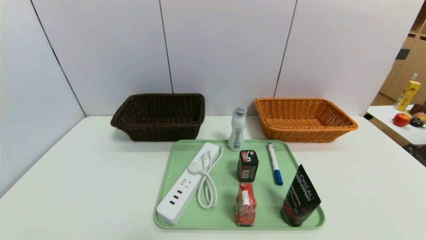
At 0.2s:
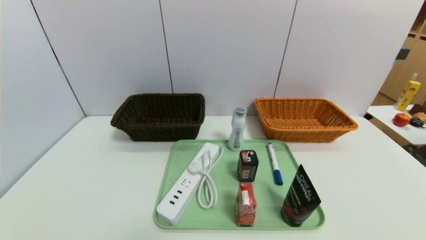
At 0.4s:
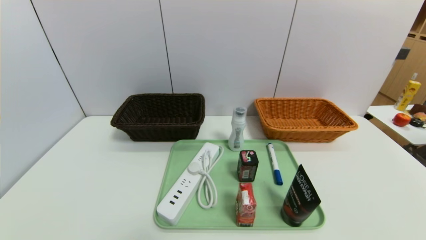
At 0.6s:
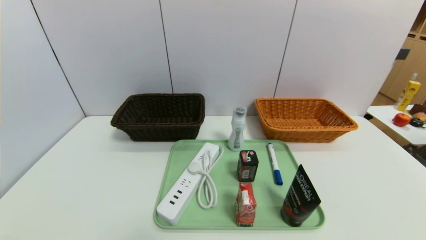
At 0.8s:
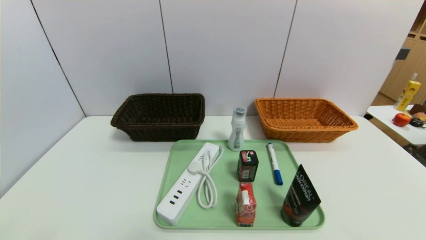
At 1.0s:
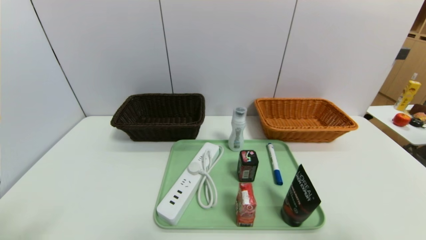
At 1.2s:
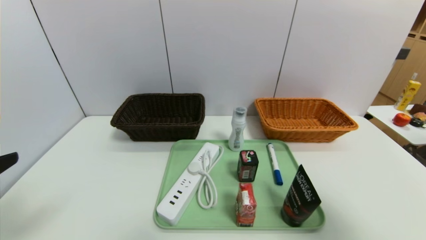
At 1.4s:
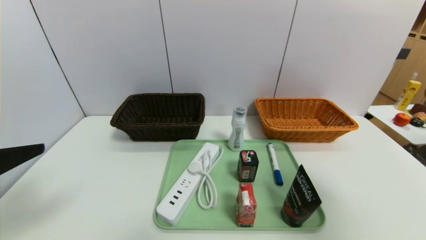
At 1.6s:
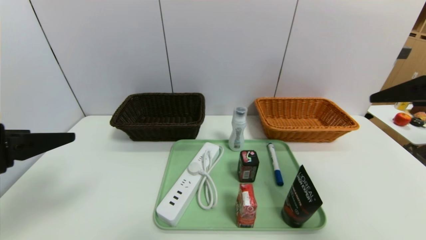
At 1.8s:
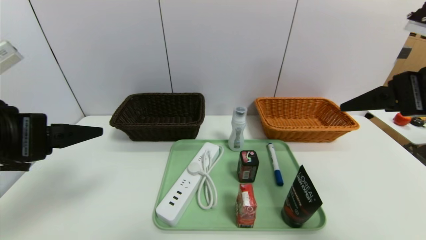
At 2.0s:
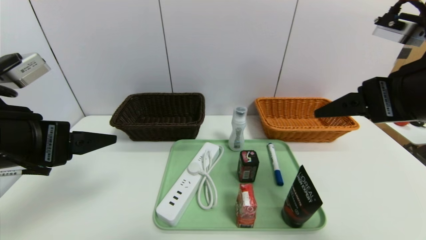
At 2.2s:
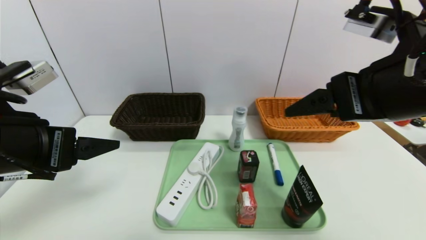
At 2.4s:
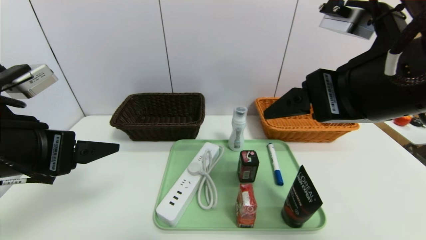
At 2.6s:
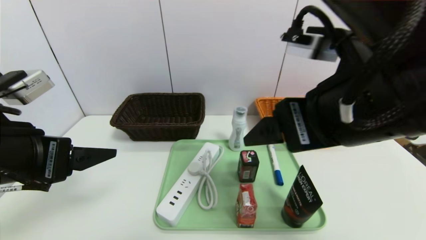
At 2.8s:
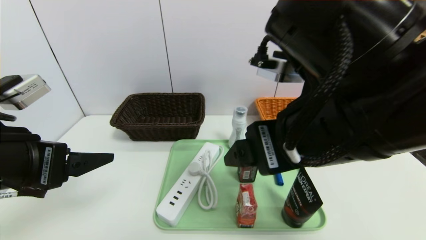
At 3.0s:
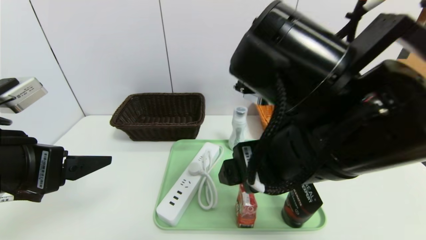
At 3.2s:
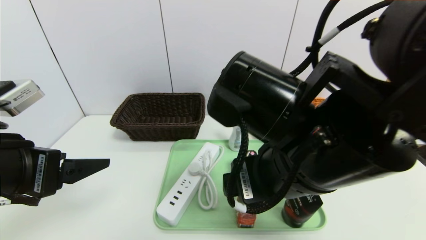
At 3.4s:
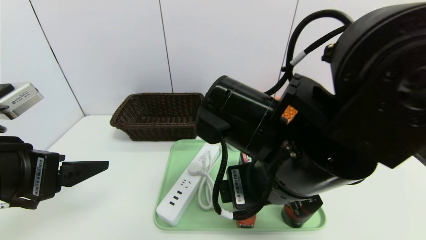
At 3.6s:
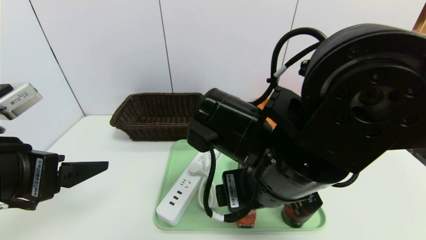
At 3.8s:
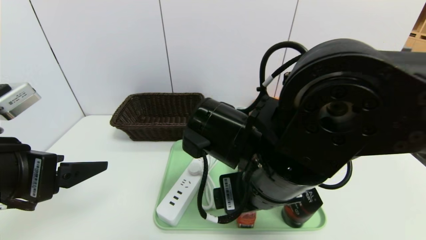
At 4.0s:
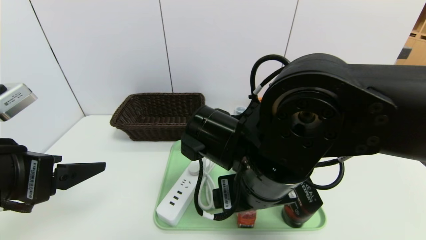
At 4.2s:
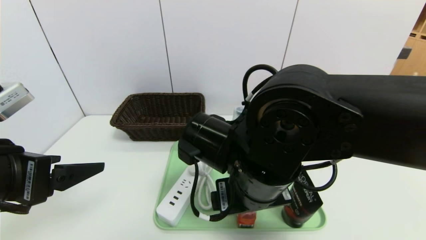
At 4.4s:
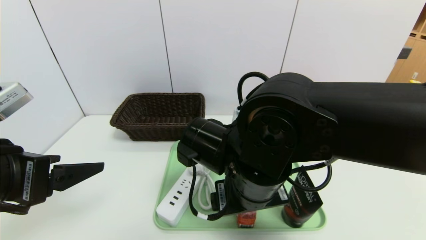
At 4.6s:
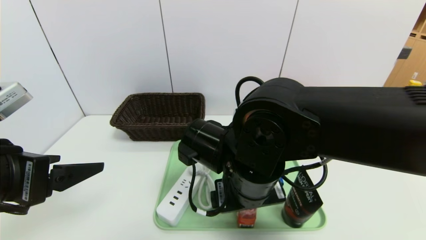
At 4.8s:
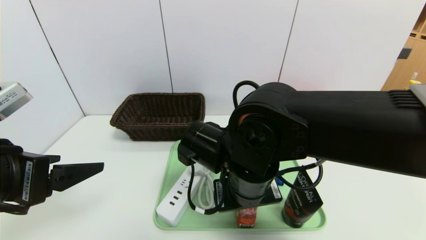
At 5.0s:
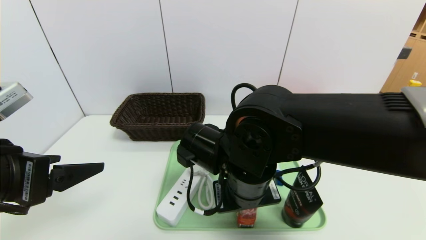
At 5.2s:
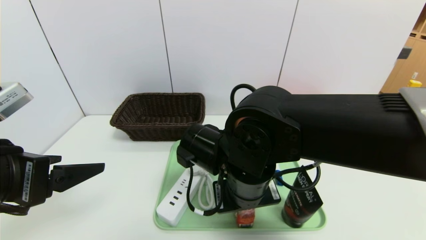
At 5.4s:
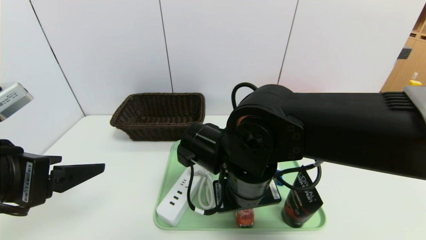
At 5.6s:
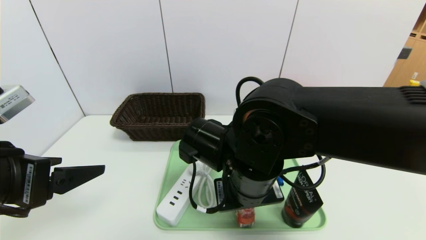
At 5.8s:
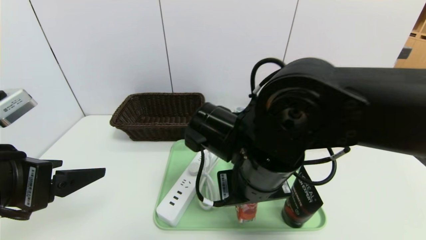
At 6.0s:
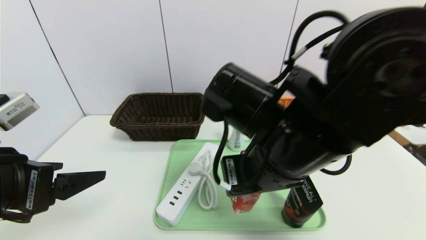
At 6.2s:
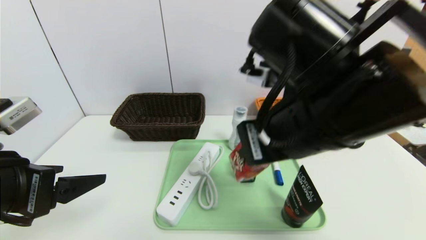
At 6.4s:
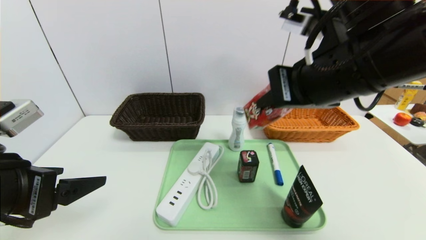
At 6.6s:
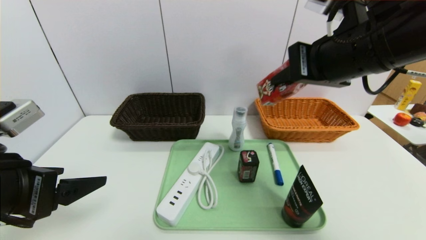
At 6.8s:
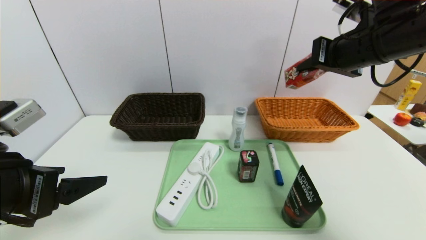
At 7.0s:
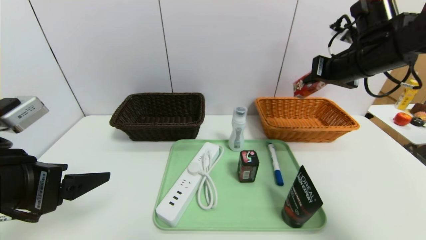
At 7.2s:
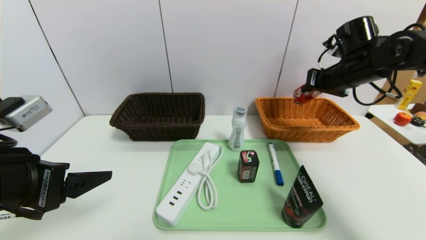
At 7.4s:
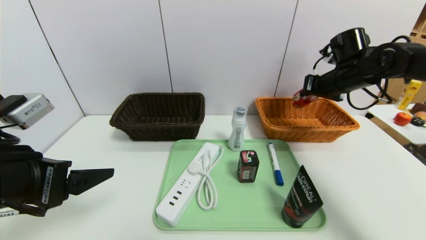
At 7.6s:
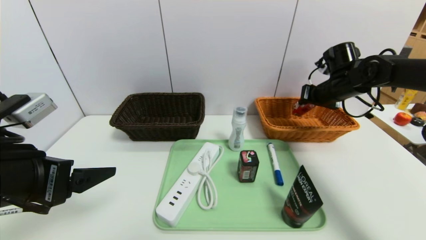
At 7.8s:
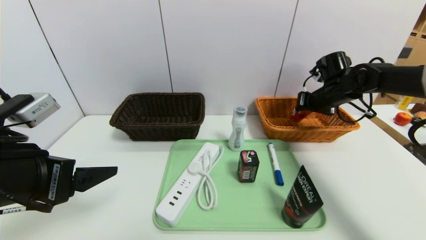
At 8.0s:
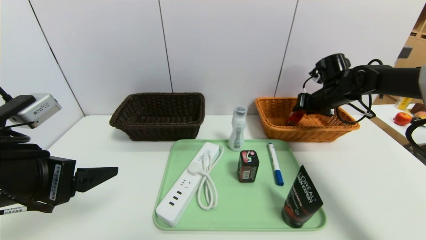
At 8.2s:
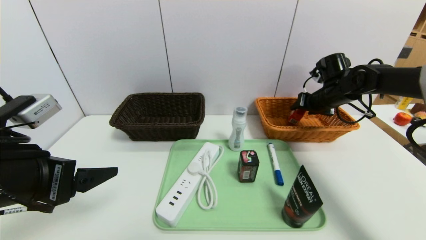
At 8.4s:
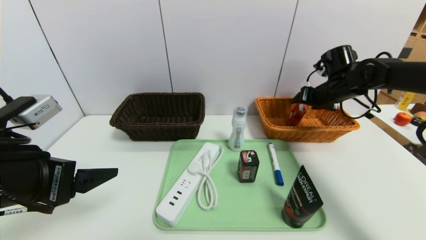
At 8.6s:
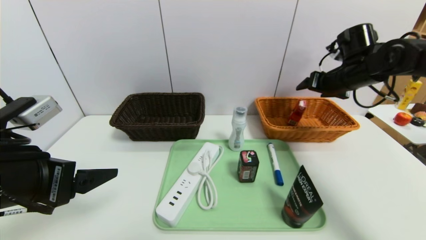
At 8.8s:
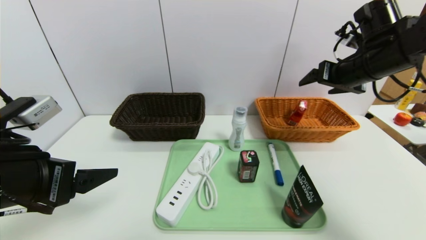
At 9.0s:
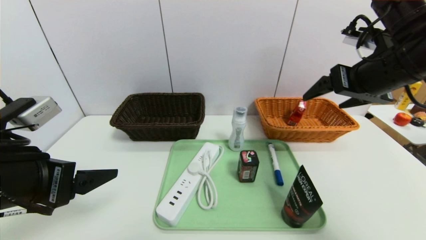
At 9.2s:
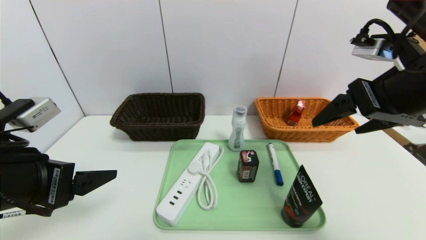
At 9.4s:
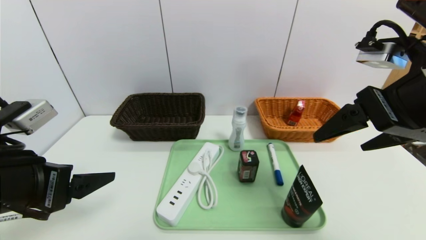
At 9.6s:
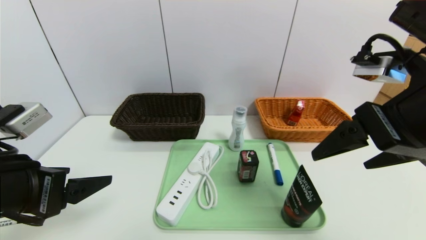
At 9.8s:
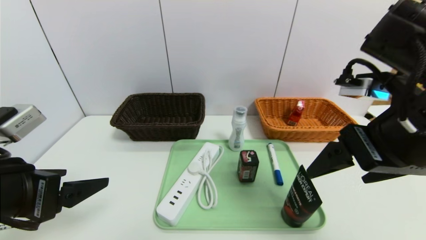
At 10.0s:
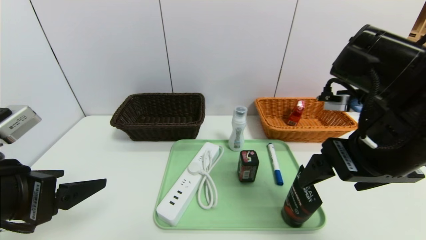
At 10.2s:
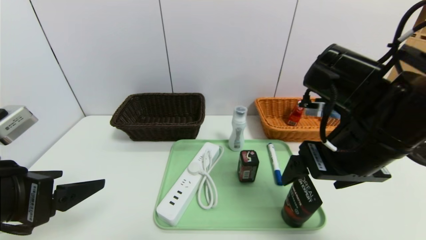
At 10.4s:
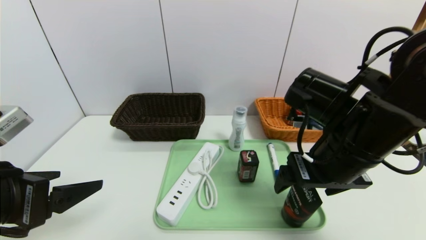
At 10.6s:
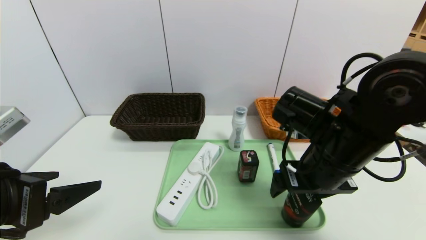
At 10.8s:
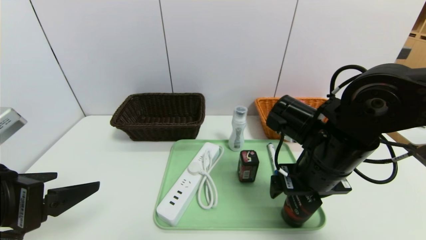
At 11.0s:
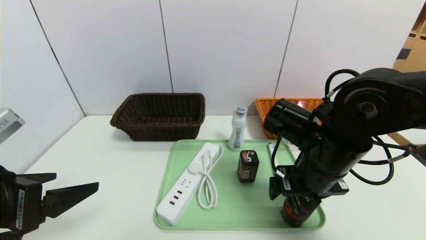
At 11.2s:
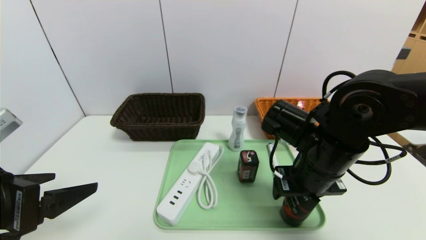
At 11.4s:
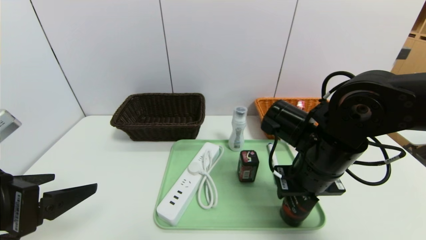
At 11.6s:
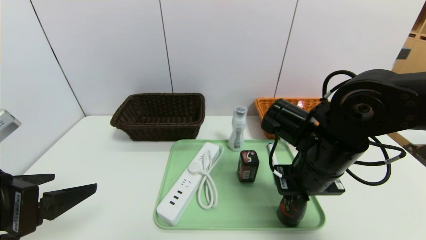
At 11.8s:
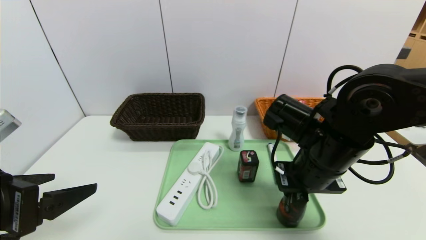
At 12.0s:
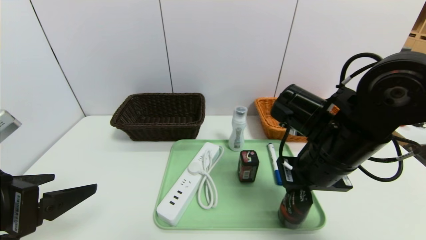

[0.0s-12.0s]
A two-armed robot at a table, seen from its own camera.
Task of the whole recording: place the food in the right basket with the right gripper, and place the non food items in the left basket with the left gripper.
Step, 0.0s to 8.6s: Grasp the ad milk and put it in the right basket.
0.0s to 1.6s: Both grippers travel together upward and forward, approximately 30 cm.
1.6s to 3.0s: The right gripper is displaced to the left by about 20 cm.
3.0s to 4.4s: The right gripper heads downward, covering some 10 cm.
4.4s to 6.0s: The right gripper moves upward, approximately 5 cm, and closes its fingers.
6.0s to 7.6s: The right gripper is displaced forward and to the right by about 35 cm.
7.6s to 9.0s: The right gripper is displaced backward and upward by approximately 20 cm, and opens.
9.0s to 10.4s: The right gripper travels downward and to the left by roughly 15 cm.
10.4s to 12.0s: The right gripper closes.

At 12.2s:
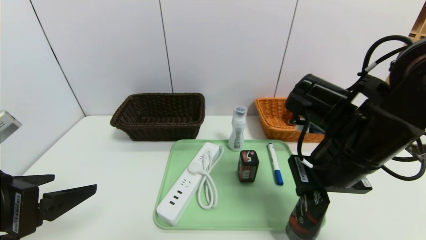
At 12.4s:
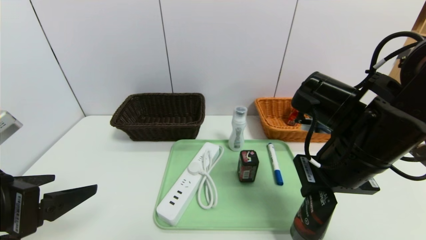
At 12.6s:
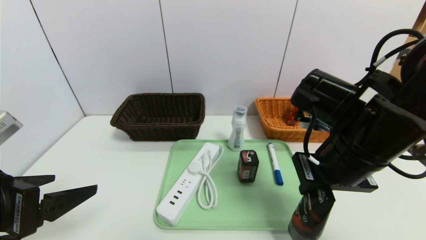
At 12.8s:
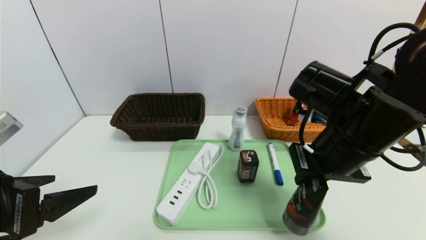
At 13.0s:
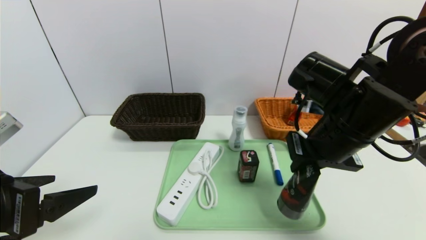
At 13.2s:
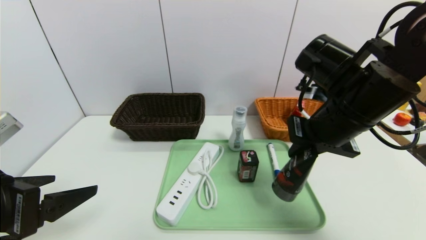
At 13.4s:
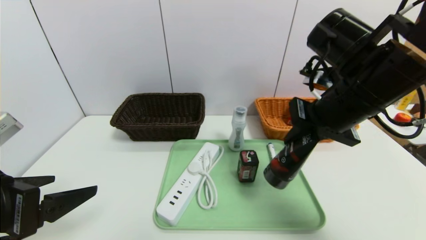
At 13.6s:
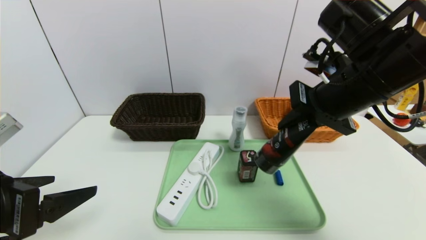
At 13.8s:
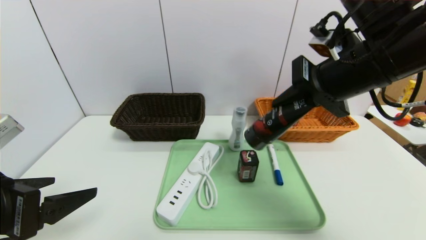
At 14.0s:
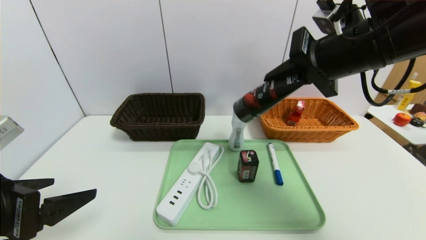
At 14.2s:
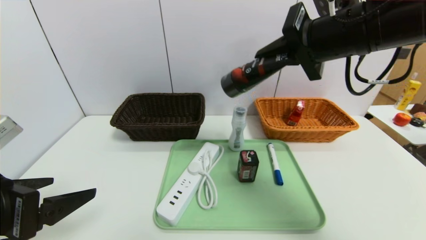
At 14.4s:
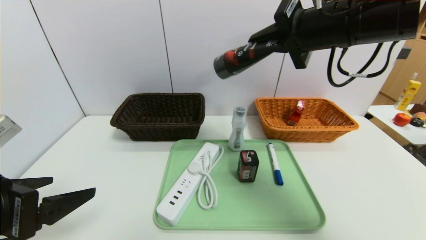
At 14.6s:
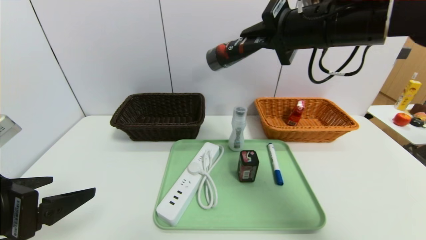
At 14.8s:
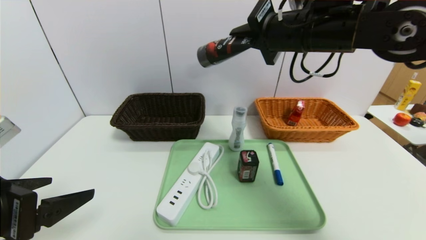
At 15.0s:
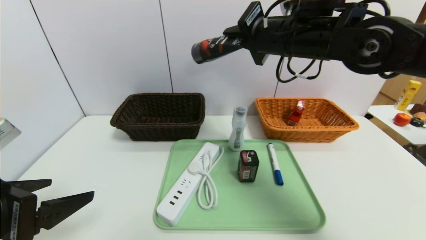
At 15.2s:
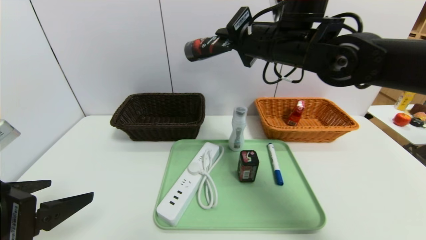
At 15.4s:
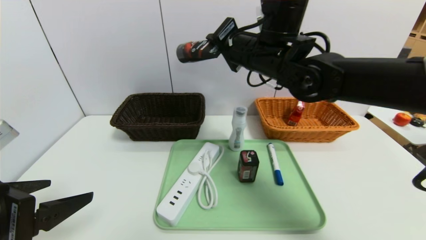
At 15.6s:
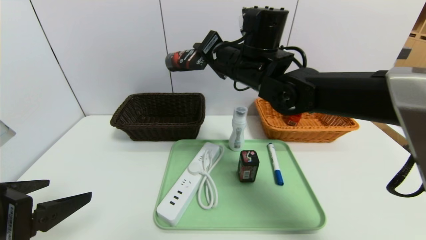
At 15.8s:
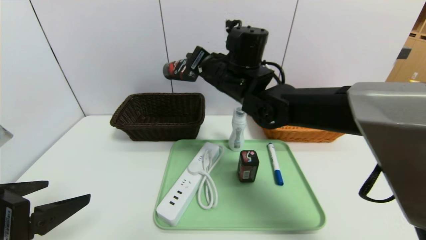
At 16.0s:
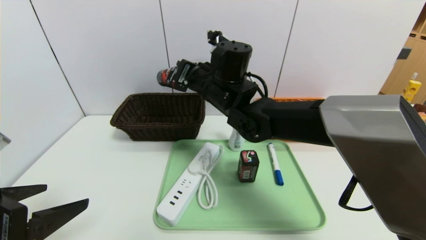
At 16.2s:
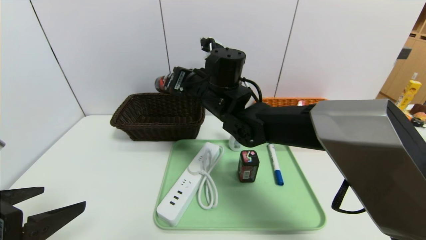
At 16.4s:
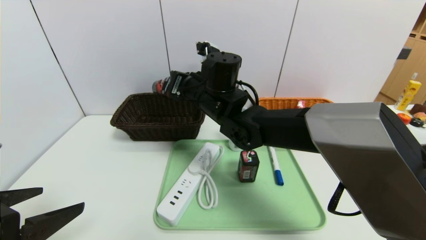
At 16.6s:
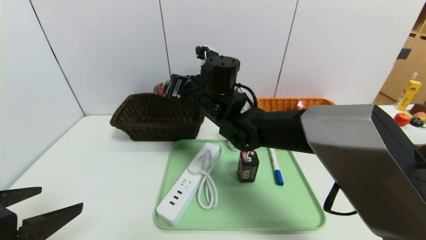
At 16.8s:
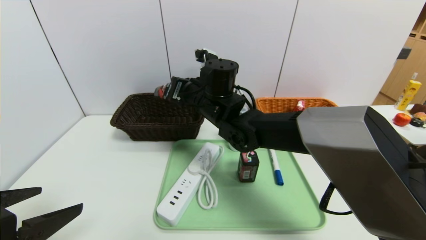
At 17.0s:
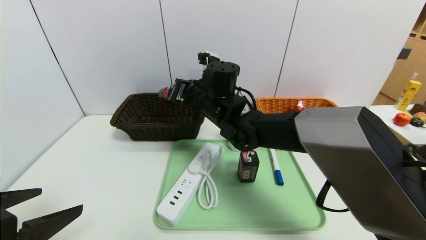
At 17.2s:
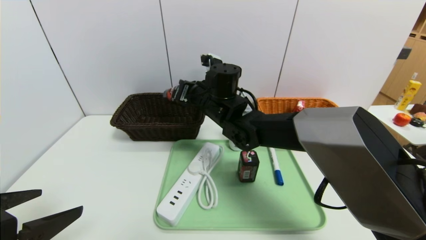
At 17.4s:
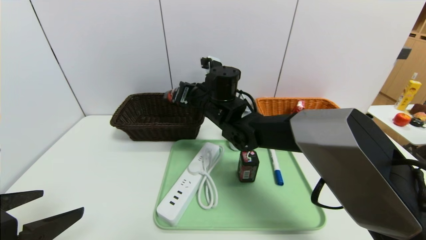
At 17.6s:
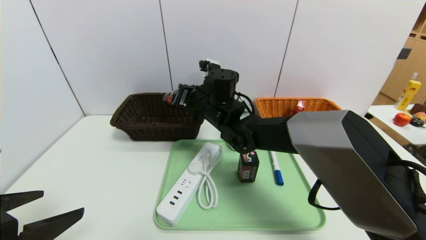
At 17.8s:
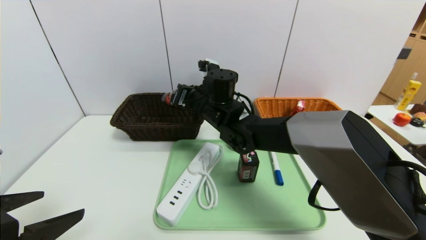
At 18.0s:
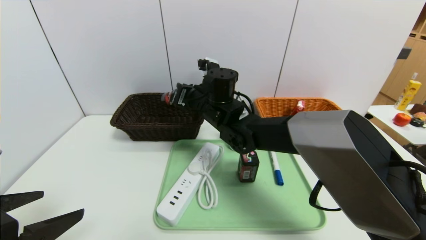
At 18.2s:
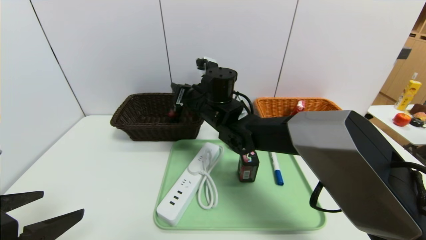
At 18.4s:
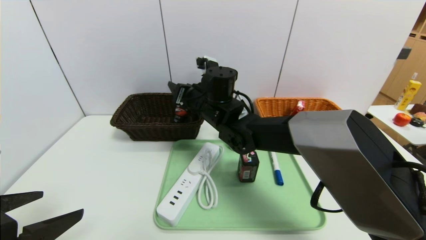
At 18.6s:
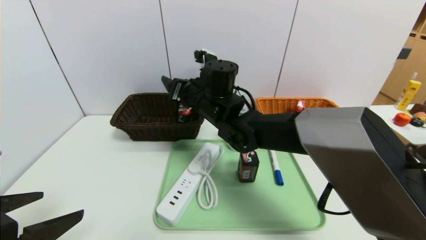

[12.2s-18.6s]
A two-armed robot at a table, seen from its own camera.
Task of the whole recording: place the food in the right basket with the right gripper, and place the non food items in the left basket with the left gripper.
12.2s to 13.8s: The right gripper heads upward, covering roughly 10 cm.
13.8s to 15.4s: The right gripper shifts some 15 cm to the left and forward.
15.4s to 17.0s: The right gripper shifts roughly 15 cm downward and to the left.
17.0s to 18.6s: The right gripper opens.
